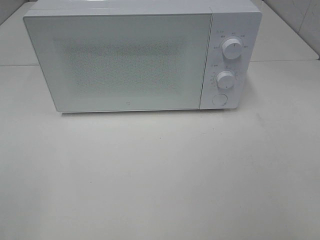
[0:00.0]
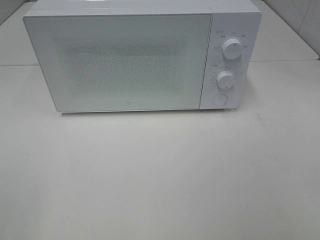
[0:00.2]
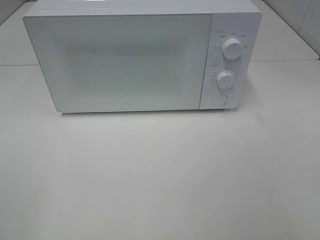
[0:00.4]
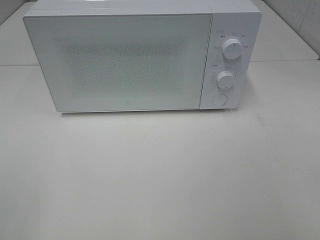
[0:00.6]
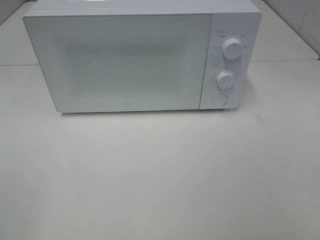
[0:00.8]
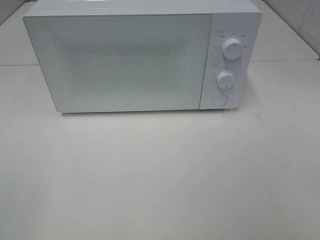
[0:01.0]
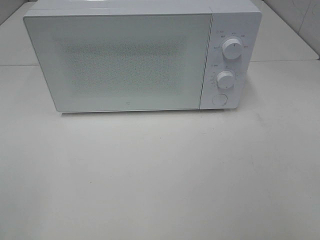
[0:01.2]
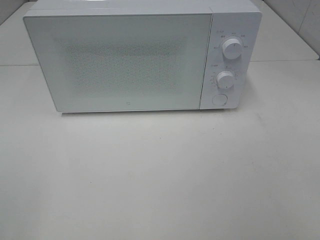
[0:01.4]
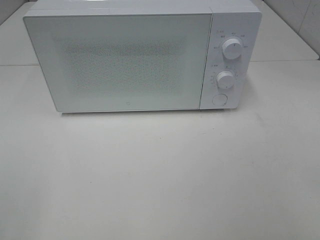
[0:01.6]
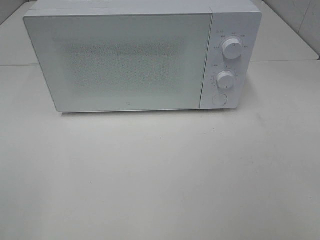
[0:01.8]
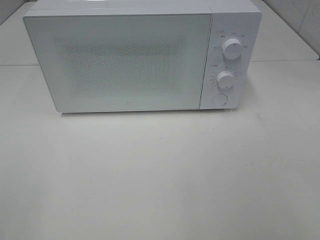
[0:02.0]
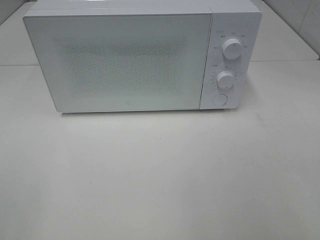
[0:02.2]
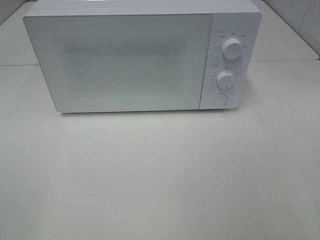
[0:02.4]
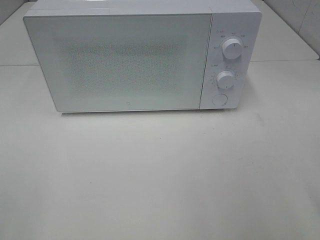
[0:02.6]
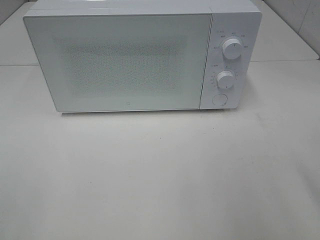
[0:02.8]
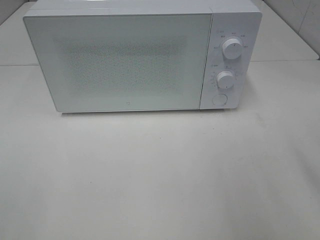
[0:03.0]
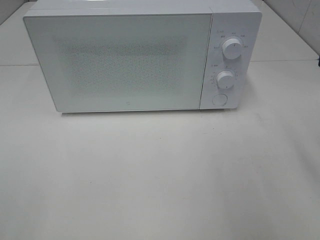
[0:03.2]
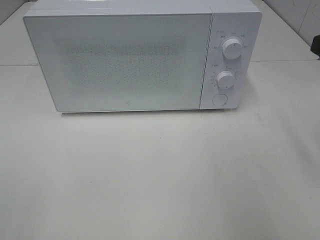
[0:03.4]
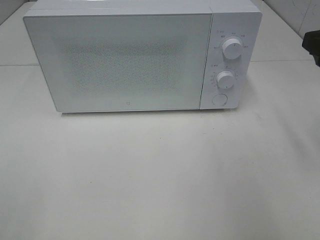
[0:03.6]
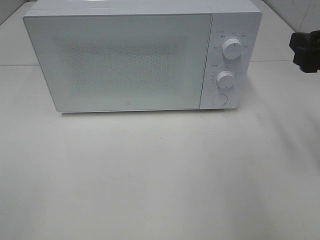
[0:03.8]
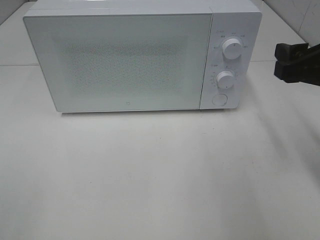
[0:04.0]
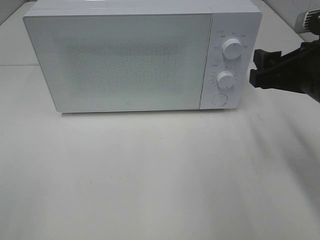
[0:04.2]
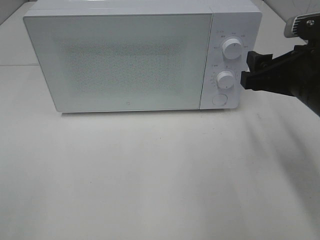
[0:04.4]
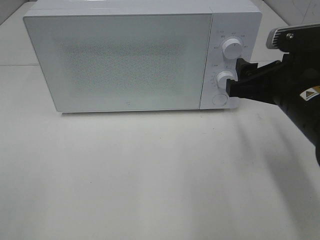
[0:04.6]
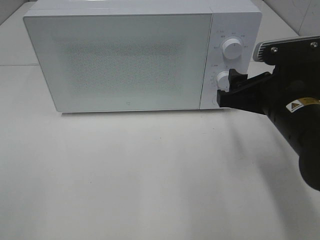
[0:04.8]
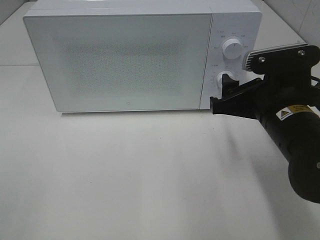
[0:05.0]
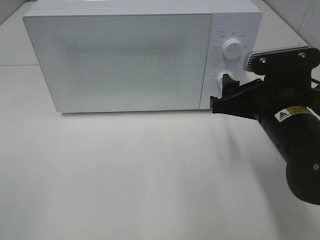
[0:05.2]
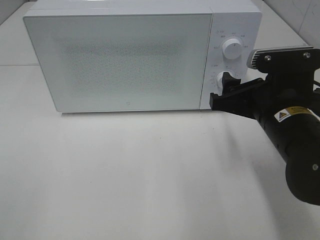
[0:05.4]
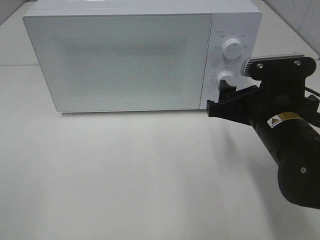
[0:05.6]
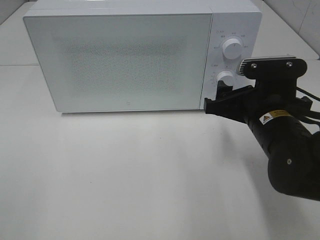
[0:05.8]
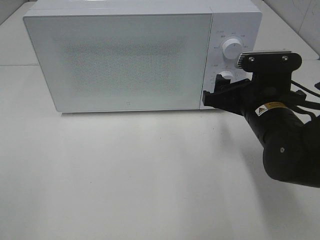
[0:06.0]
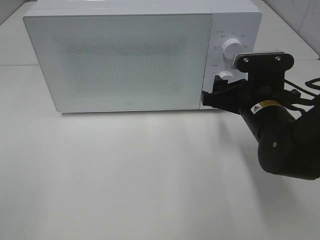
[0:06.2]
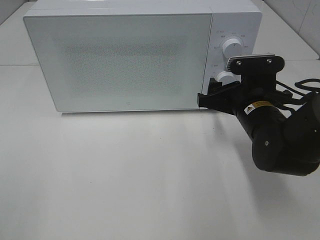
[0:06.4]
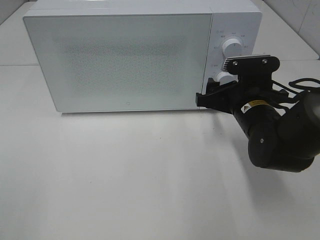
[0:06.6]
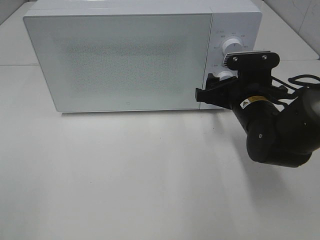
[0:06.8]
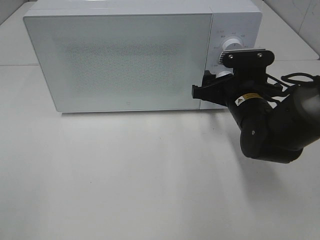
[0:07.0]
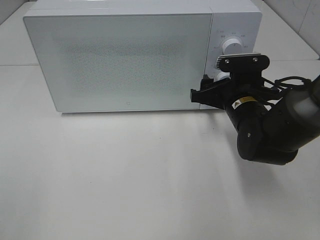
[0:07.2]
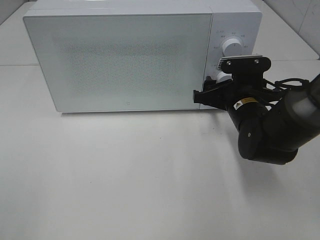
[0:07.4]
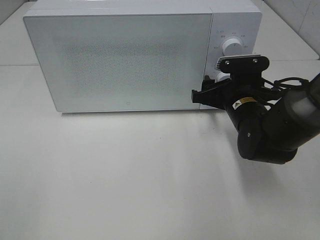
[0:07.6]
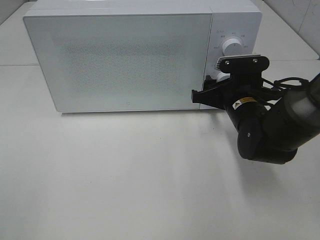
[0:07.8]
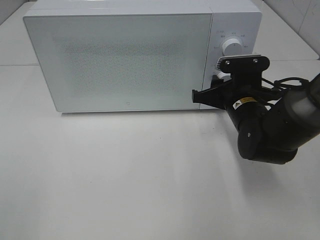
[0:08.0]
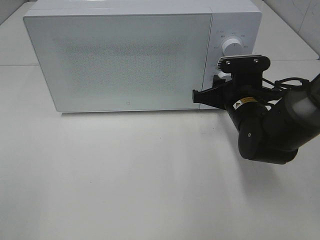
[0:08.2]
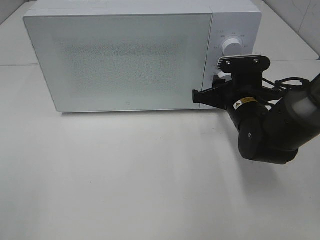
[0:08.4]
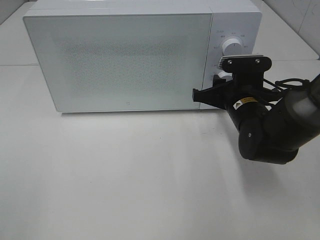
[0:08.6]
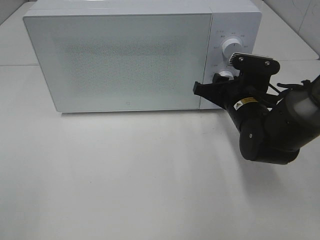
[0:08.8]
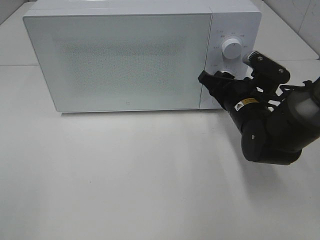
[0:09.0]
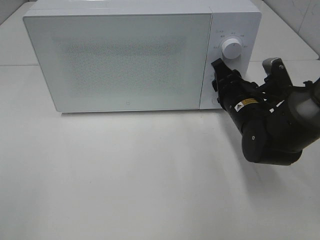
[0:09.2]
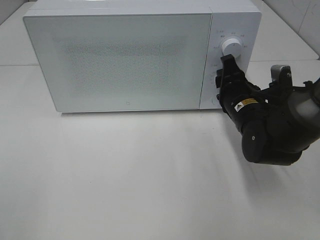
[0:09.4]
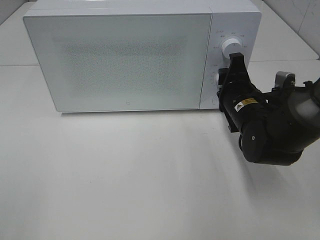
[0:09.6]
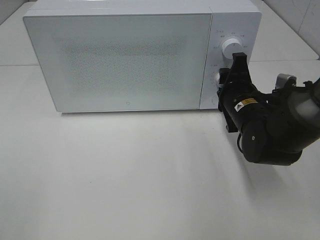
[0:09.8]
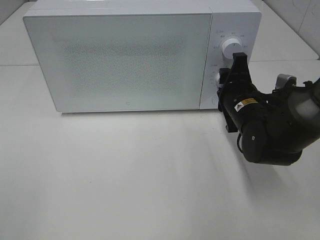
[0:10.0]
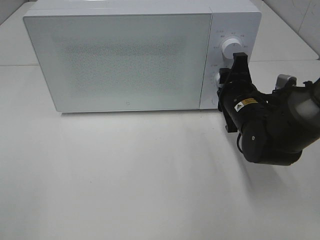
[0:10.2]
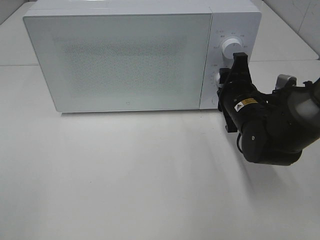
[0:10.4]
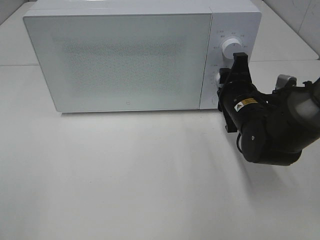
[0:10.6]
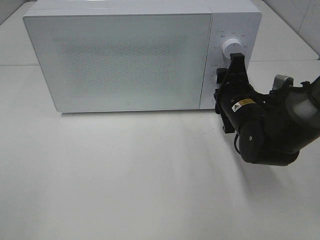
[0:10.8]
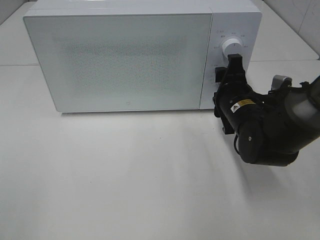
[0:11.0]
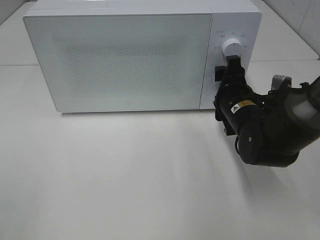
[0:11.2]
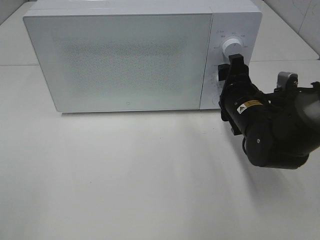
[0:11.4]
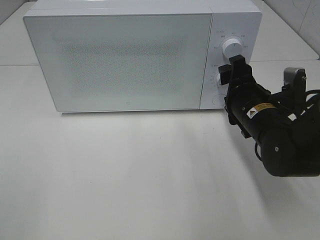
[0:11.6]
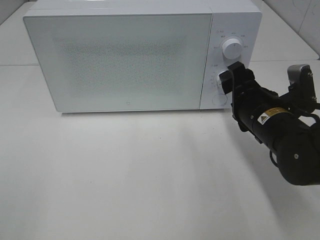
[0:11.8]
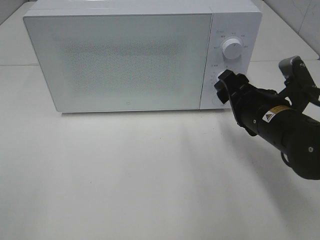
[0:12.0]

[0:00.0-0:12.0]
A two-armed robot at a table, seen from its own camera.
Task of the whole recording: Heat the burger.
Step, 0:00.0 to 0:10.8: Right hand: twist timer button.
0:00.0 to 0:01.6: The two grippers keep their place.
0:03.0 to 0:04.4: The right gripper goes approximately 15 cm forward, downward and to the left.
0:04.4 to 0:06.0: The right gripper moves downward, approximately 5 cm.
0:06.0 to 0:07.6: The right gripper travels forward by some 5 cm.
0:07.6 to 0:09.0: The right gripper closes up.
0:10.4 to 0:12.0: The right gripper moves backward, about 5 cm.

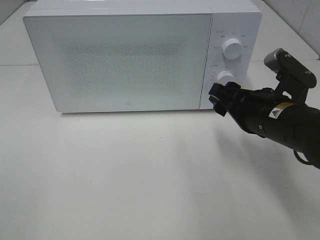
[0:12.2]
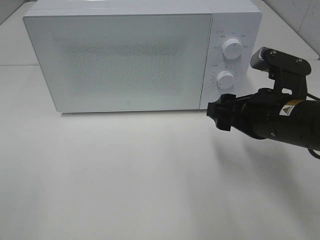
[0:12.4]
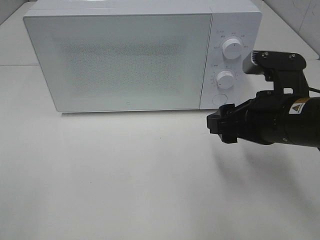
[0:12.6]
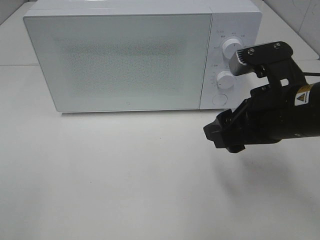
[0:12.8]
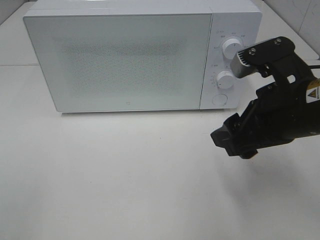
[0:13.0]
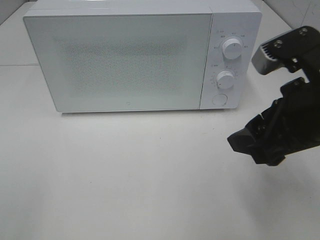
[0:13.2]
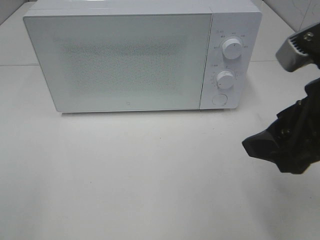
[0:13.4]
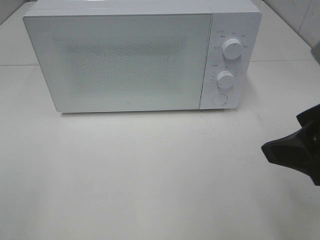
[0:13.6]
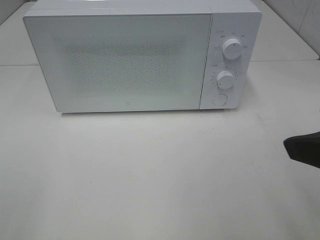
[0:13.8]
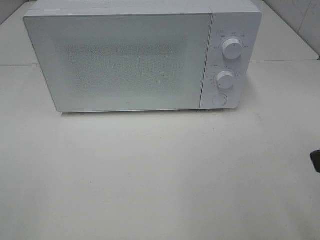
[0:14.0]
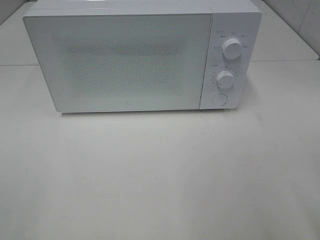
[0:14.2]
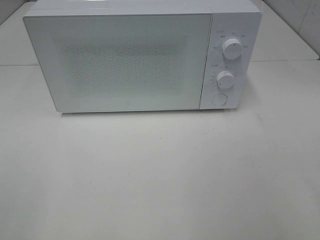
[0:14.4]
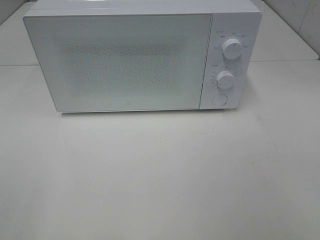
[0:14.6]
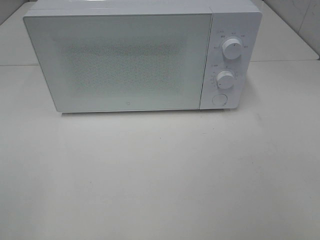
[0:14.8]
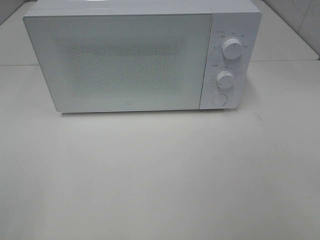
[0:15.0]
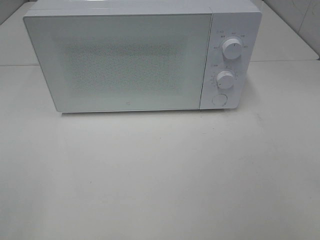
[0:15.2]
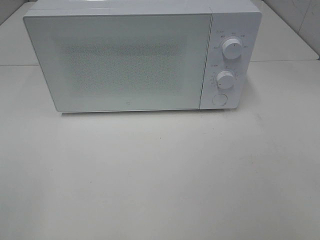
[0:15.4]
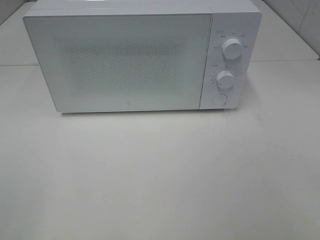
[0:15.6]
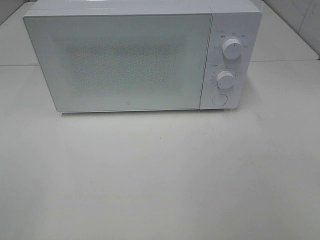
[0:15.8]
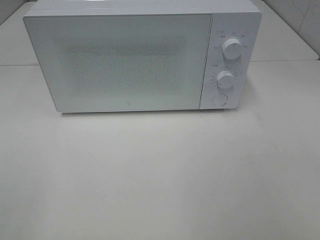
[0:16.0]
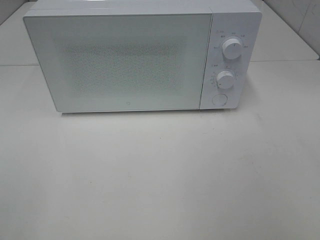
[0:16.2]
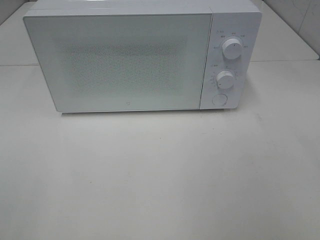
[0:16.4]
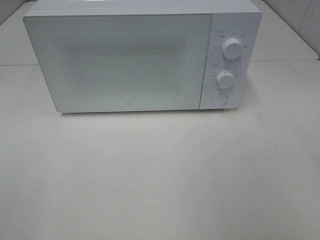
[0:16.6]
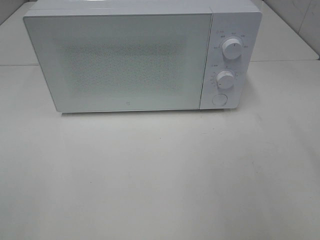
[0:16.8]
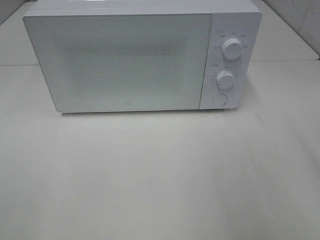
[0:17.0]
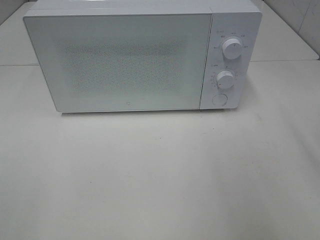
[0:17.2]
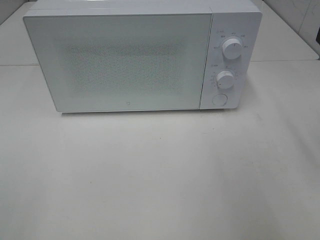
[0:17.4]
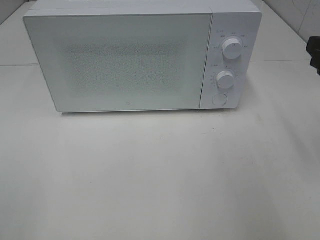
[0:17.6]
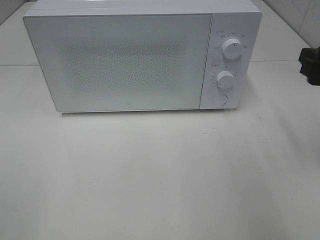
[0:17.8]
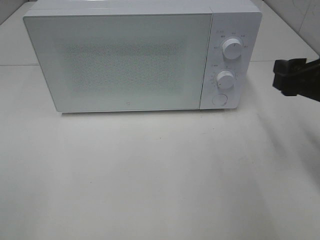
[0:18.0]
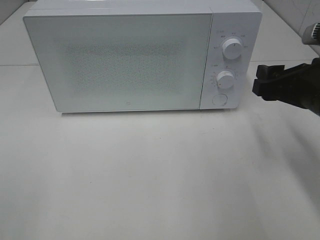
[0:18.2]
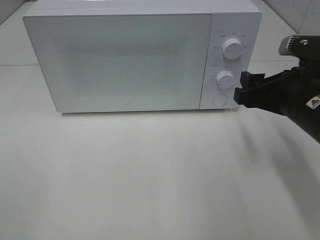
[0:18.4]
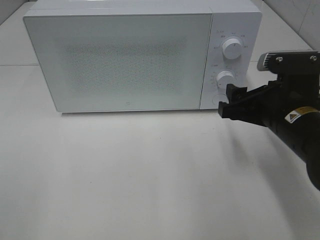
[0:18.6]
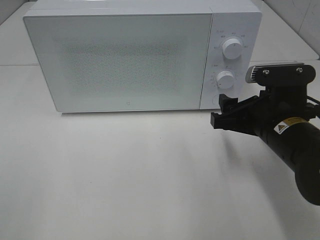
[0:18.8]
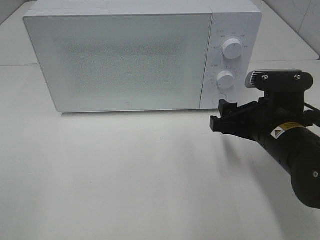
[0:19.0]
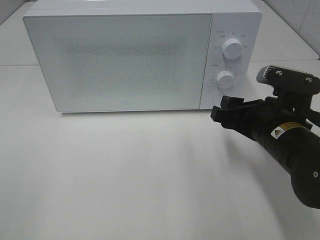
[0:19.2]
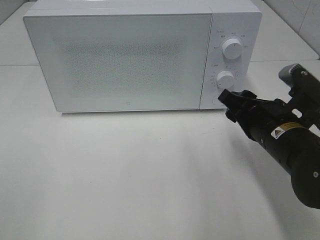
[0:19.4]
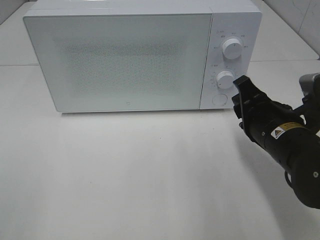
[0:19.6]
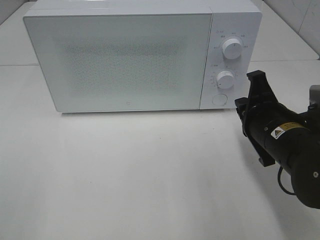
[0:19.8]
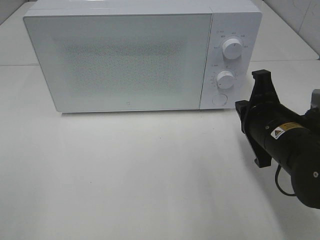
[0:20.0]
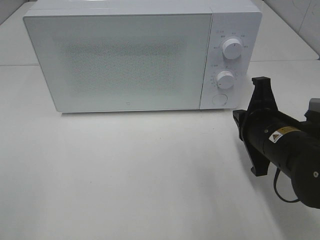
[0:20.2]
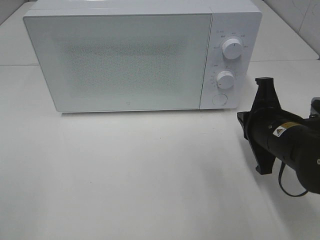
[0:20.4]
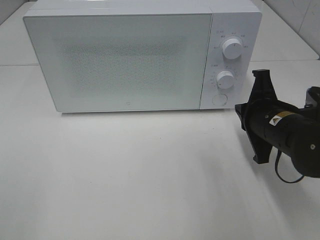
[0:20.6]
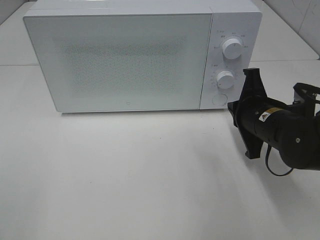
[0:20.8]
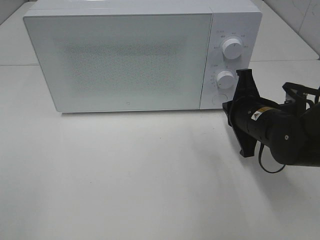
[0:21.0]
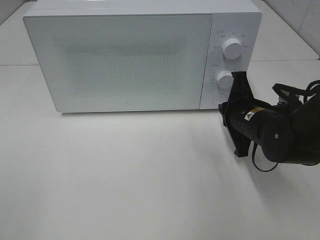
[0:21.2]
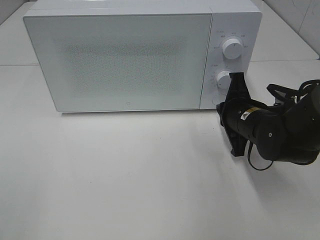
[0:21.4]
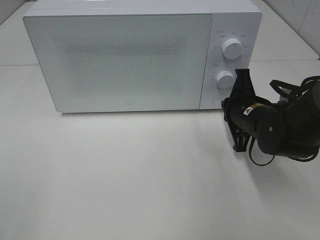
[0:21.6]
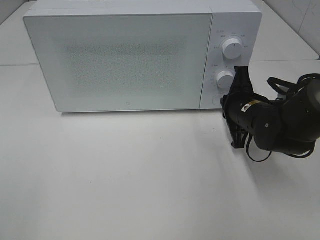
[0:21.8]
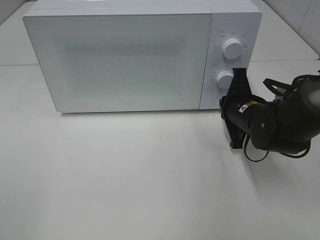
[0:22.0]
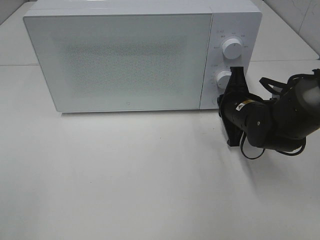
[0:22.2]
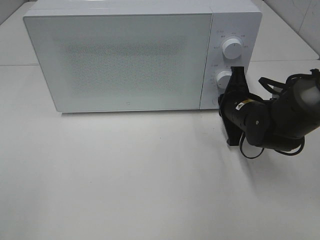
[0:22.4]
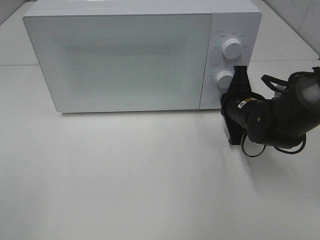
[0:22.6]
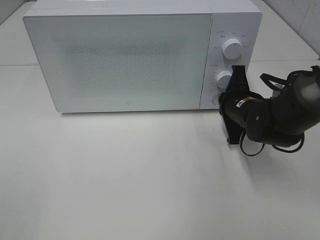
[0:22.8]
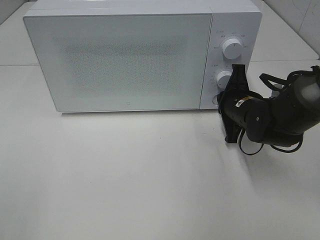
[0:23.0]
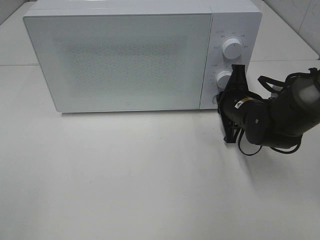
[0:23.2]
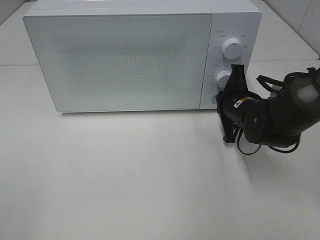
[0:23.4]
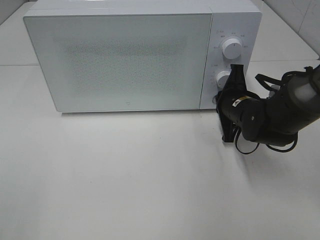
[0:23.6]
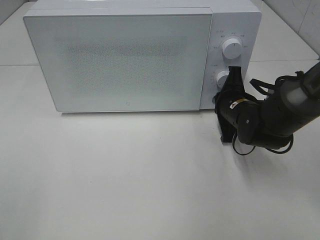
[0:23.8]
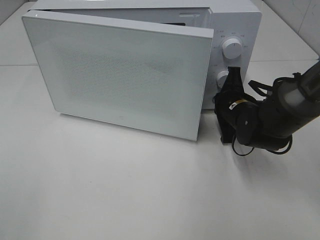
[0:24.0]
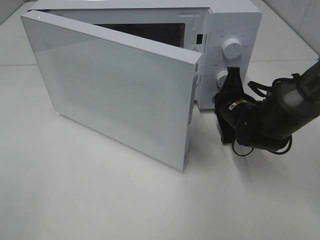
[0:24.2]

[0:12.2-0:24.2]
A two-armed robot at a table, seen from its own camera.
Task of the whole recording: Heat the burger.
0:12.2 to 0:13.8: The right gripper travels backward and upward by approximately 20 cm.
0:13.8 to 0:15.2: The right gripper is displaced backward and to the right by approximately 15 cm.
0:16.6 to 0:18.2: The right gripper shifts some 20 cm forward and downward.
0:18.2 to 0:19.8: The right gripper moves downward and to the left, approximately 10 cm, and closes up.
0:19.8 to 0:21.2: The right gripper shifts approximately 5 cm forward.
0:21.2 to 0:24.2: The grippers move only a little.
